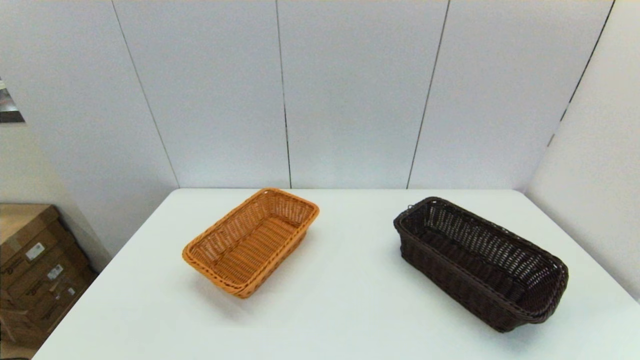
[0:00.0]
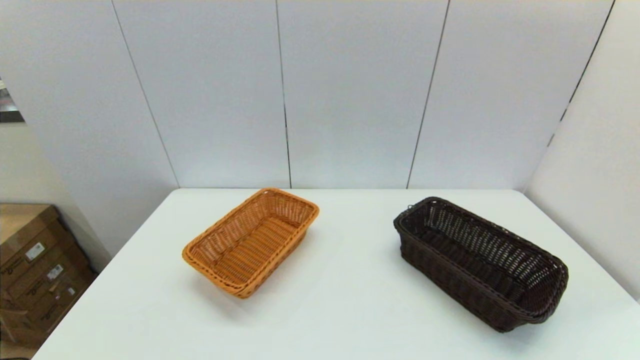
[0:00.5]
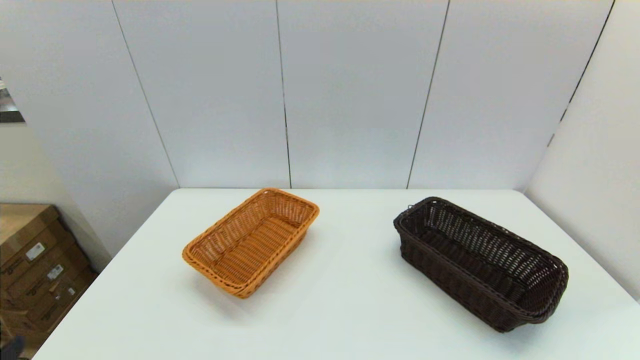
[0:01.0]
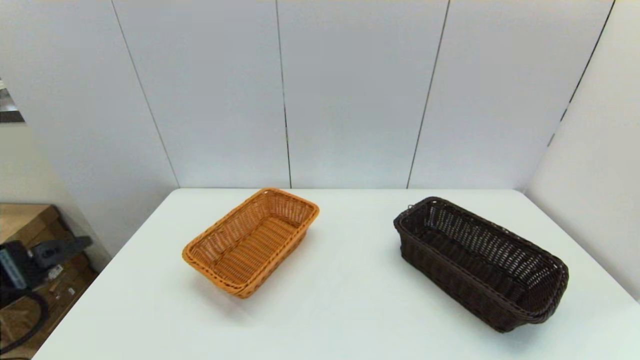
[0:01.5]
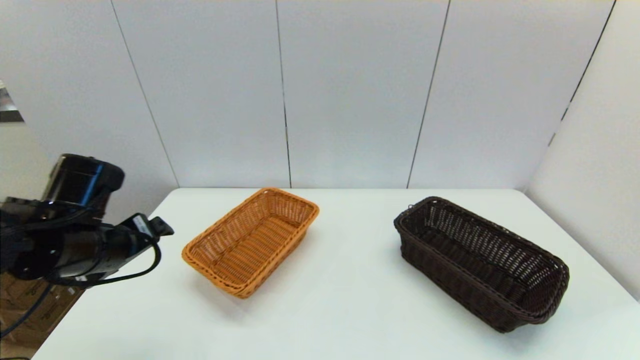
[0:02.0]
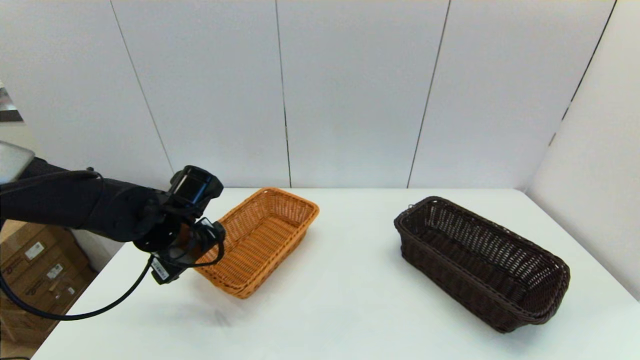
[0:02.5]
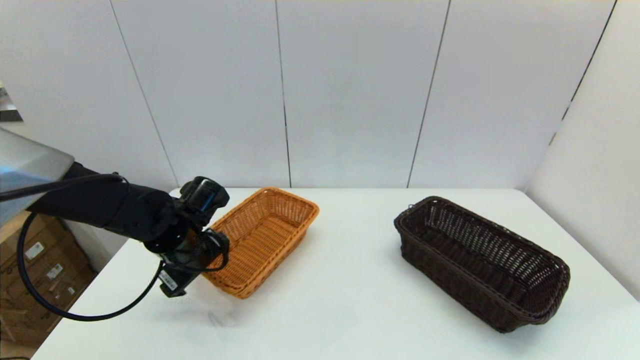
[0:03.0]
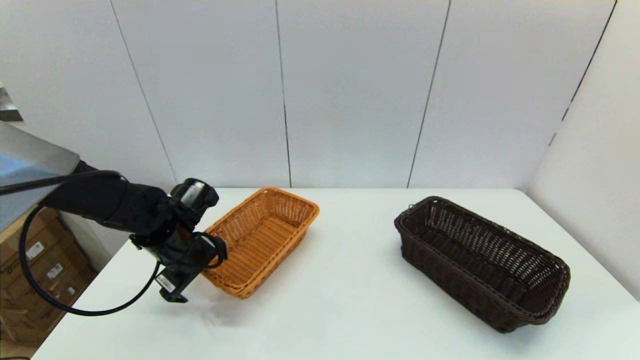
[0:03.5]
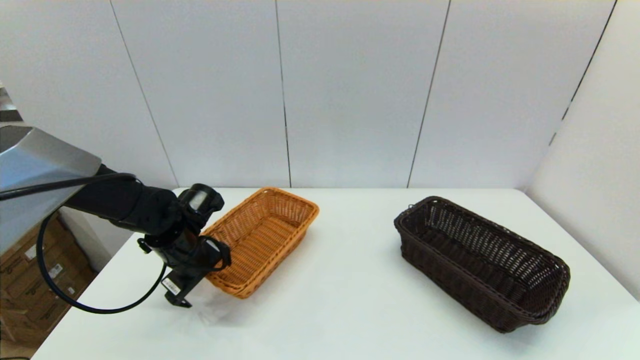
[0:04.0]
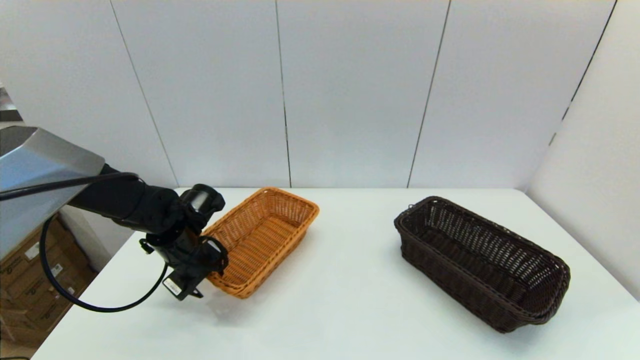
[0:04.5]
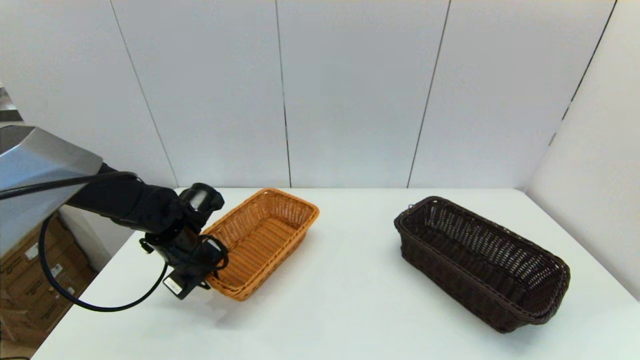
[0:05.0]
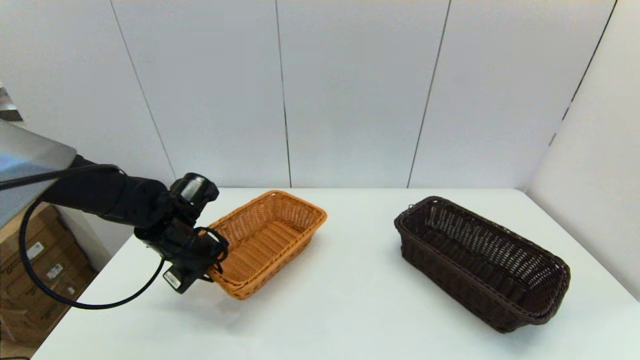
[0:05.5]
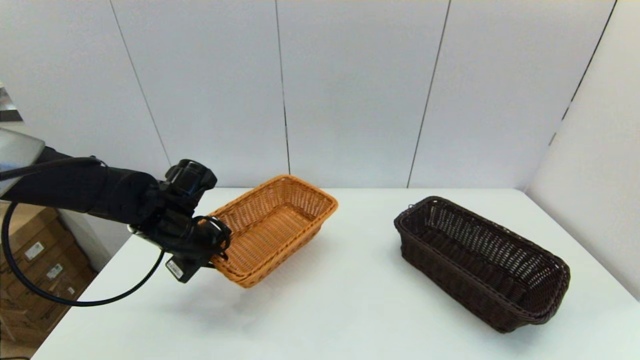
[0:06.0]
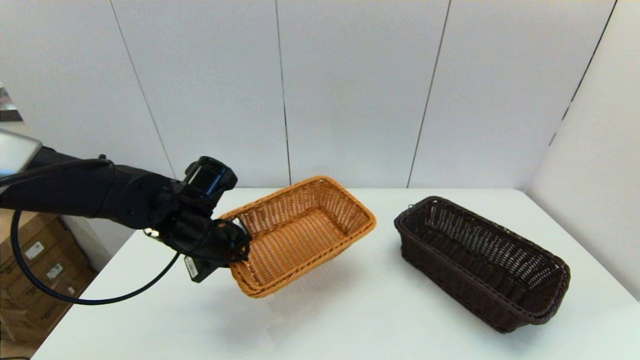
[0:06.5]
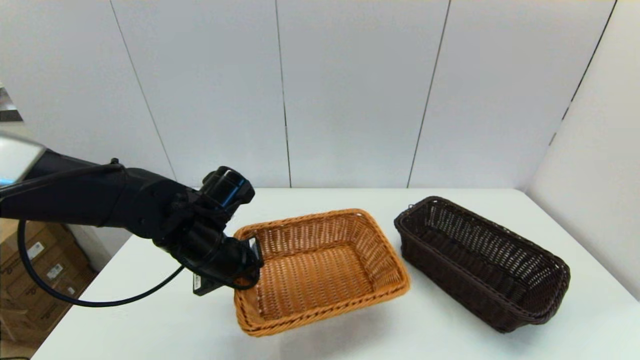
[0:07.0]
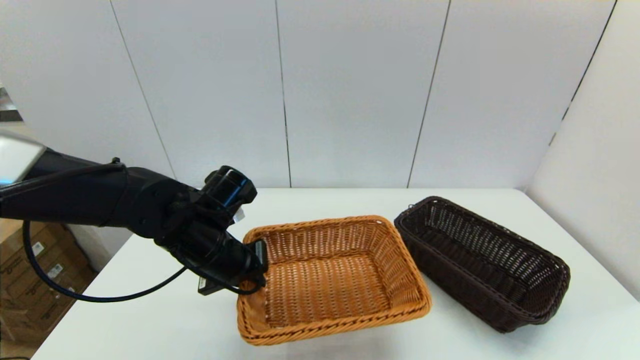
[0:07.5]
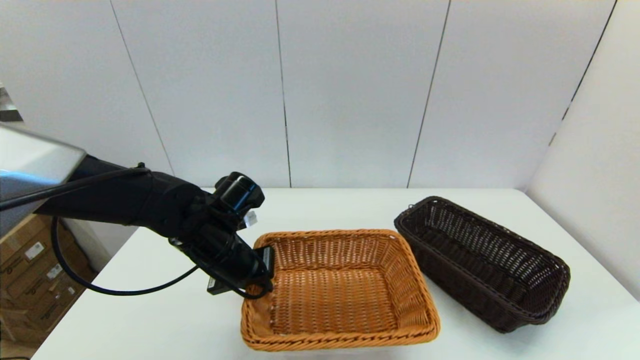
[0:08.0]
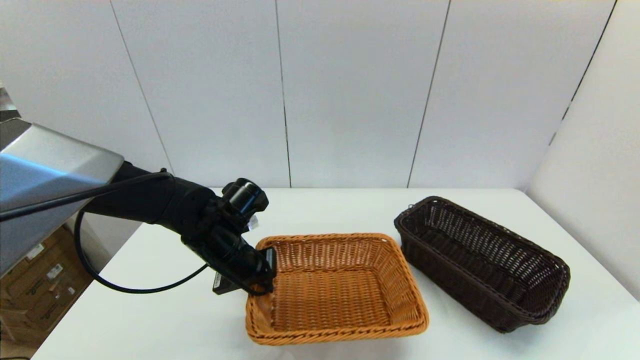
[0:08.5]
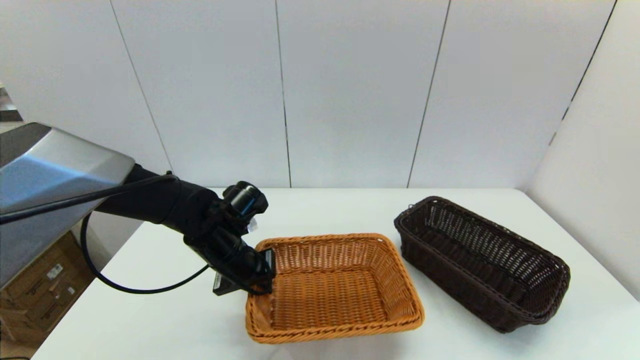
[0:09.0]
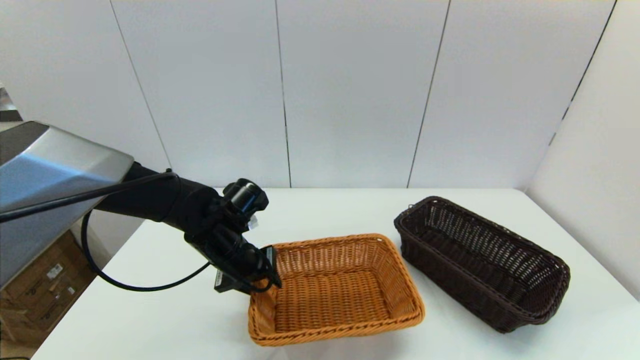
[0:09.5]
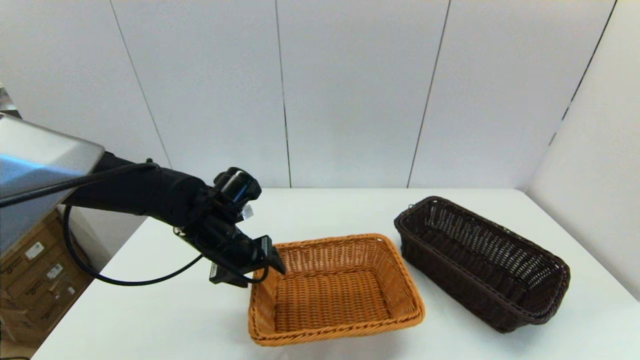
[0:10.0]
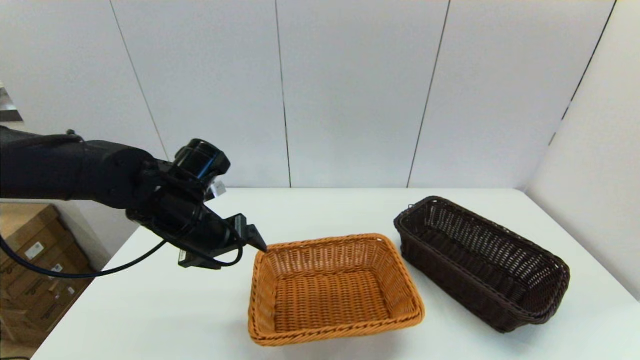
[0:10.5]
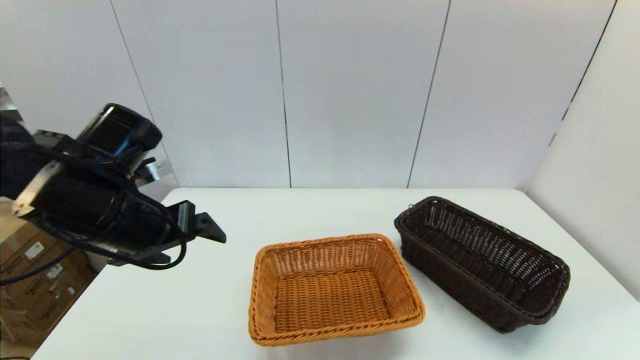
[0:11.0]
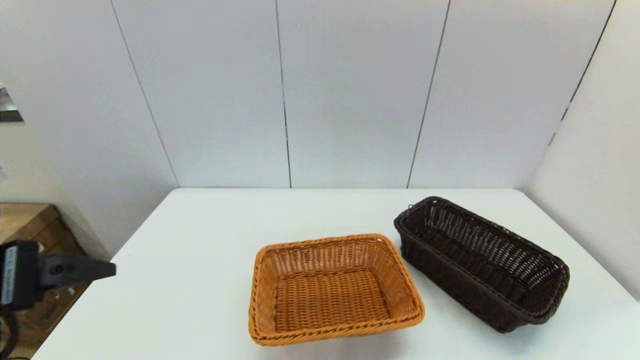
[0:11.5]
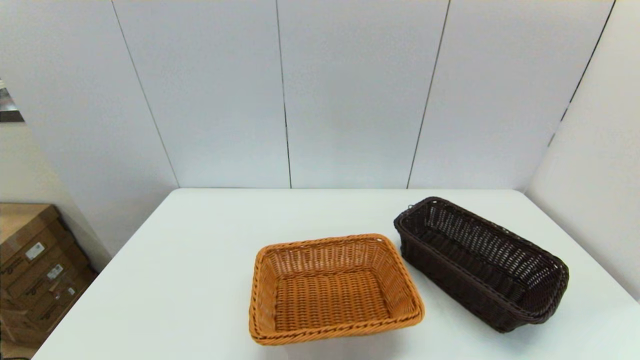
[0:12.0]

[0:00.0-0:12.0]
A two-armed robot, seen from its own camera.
Task of the whole recording: stack a basket on top of another basket.
Step, 0:01.0 to 0:05.0: Grasp the light basket with the left gripper.
Step, 0:05.5 to 0:10.0: Place the light basket on the middle of the table with the left gripper.
0:00.0 to 0:02.0: The left gripper shifts roughly 25 cm forward.
0:02.0 to 0:04.0: The left gripper travels downward and forward by approximately 10 cm.
0:04.0 to 0:06.0: The left gripper travels upward by some 5 cm, and closes.
0:06.0 to 0:08.0: The left gripper travels to the right by roughly 5 cm.
0:08.0 to 0:10.0: The left gripper opens its fingers.
0:10.0 to 0:12.0: The left gripper is displaced backward, to the left and upward by approximately 35 cm.

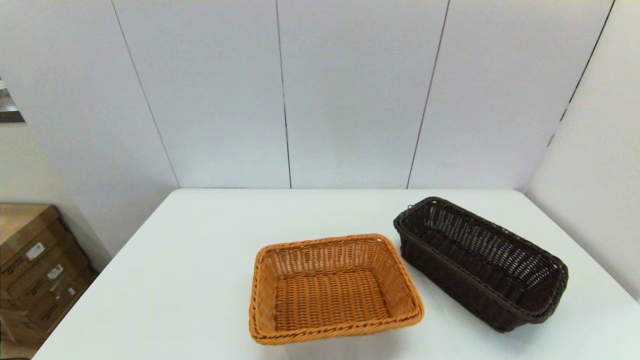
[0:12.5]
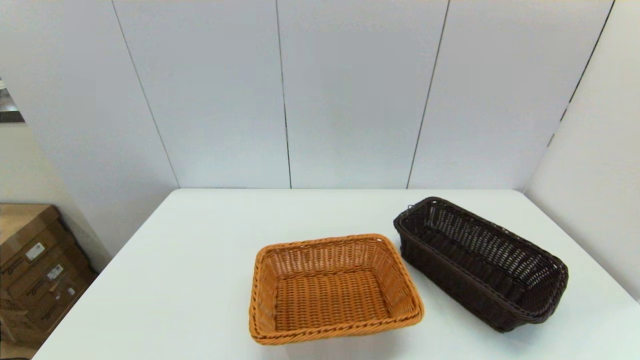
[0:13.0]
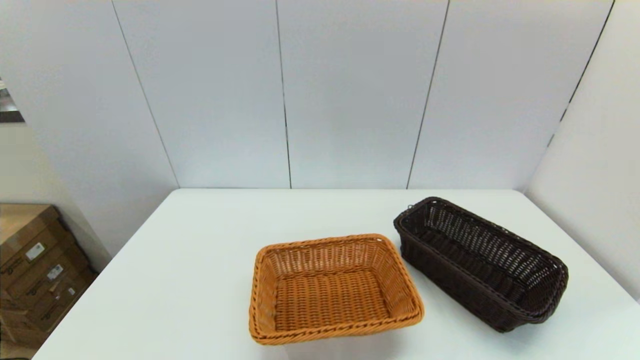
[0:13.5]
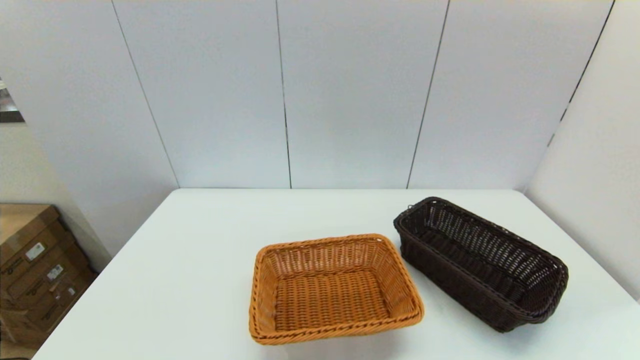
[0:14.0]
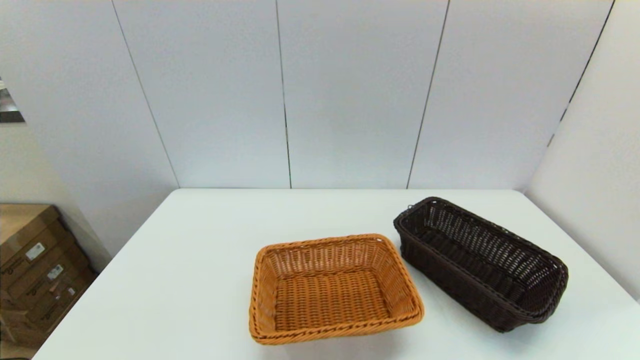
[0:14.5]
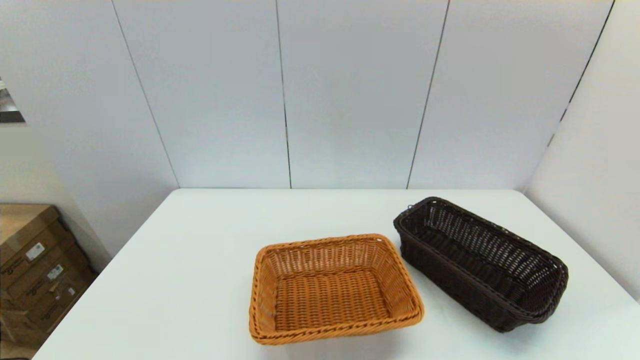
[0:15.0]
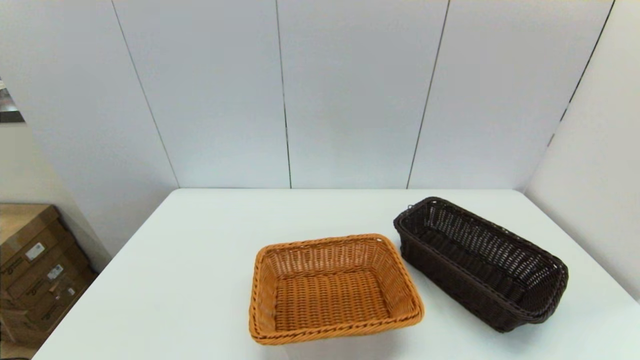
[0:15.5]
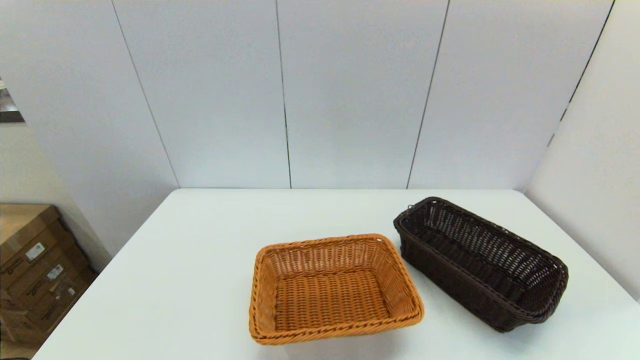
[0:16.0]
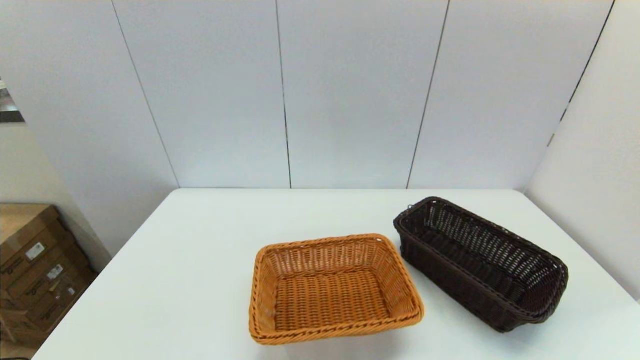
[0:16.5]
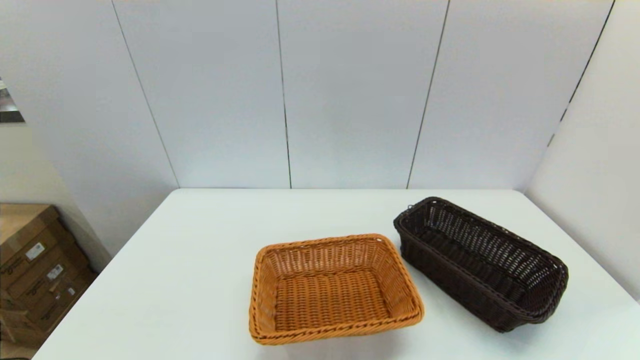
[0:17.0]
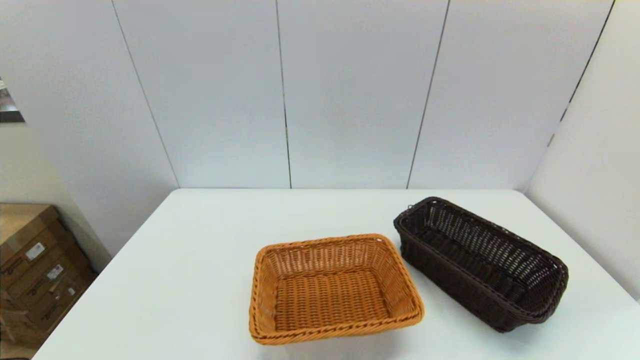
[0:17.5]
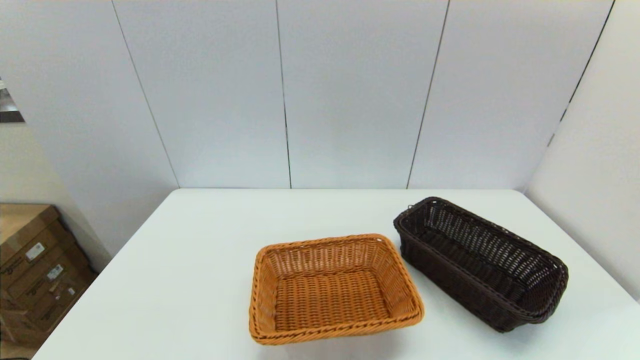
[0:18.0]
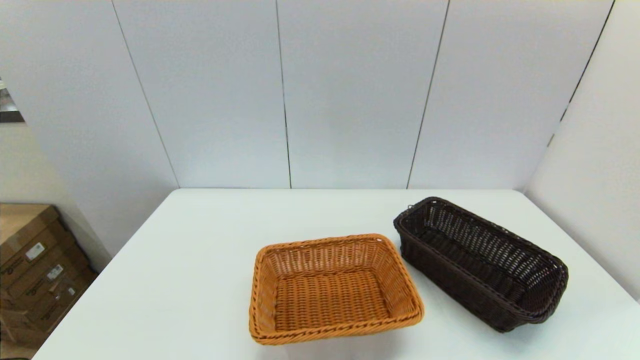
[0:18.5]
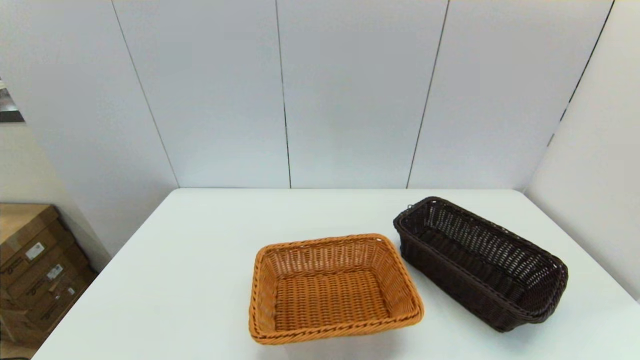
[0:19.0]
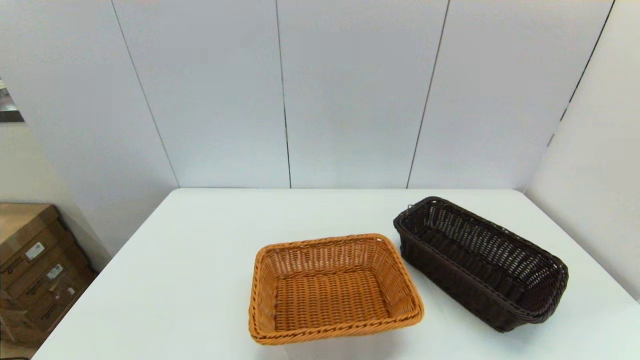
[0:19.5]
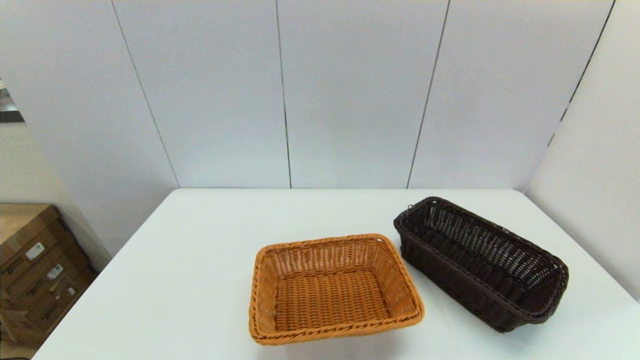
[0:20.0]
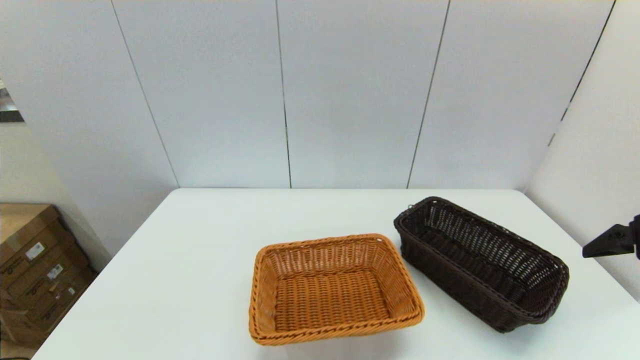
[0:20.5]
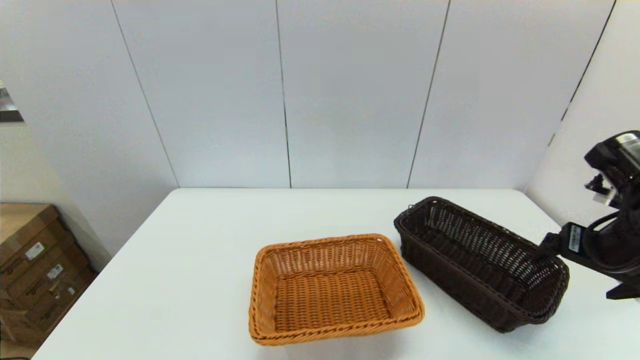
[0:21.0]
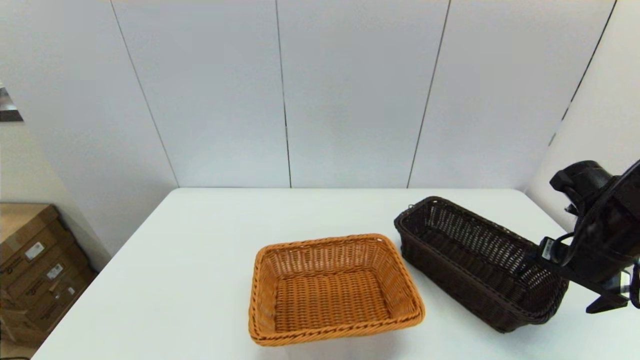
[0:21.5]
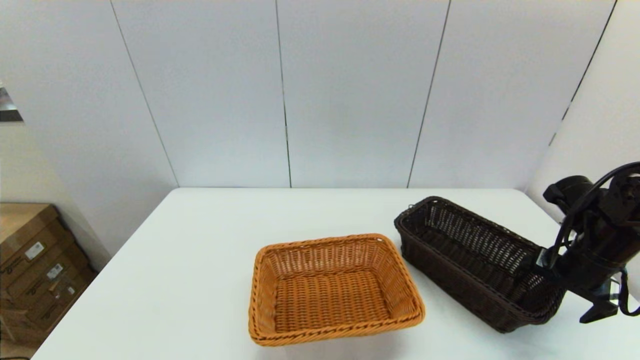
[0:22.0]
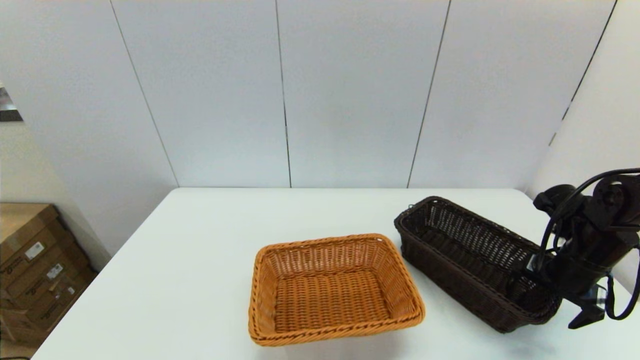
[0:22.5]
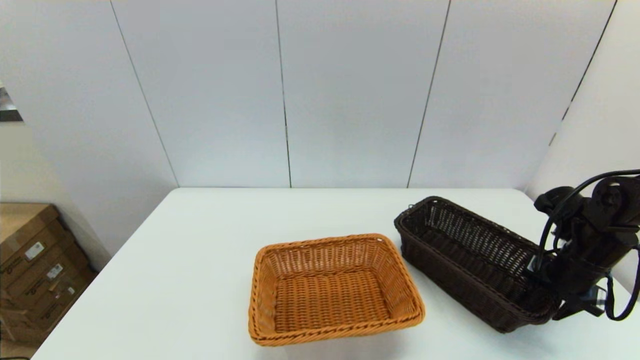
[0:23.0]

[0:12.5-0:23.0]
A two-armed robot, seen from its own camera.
Task of the whole recording: stack a basket on top of another basket.
0:19.0 to 0:21.0: The right gripper shifts roughly 25 cm forward.
0:21.0 to 0:23.0: The right gripper is displaced downward and forward by some 10 cm, and closes.
